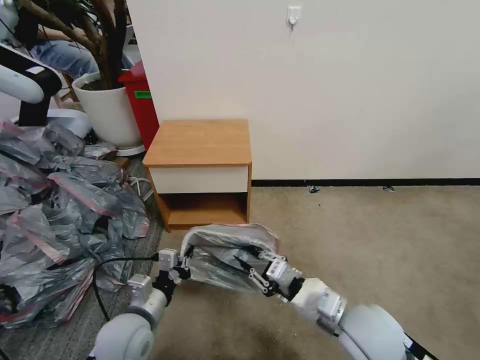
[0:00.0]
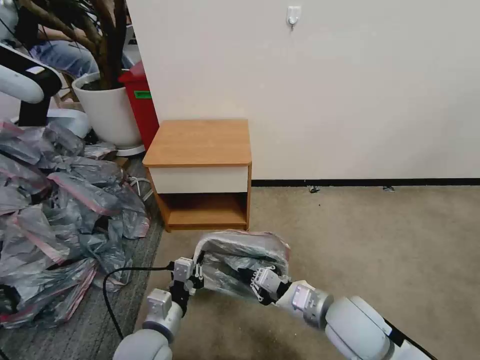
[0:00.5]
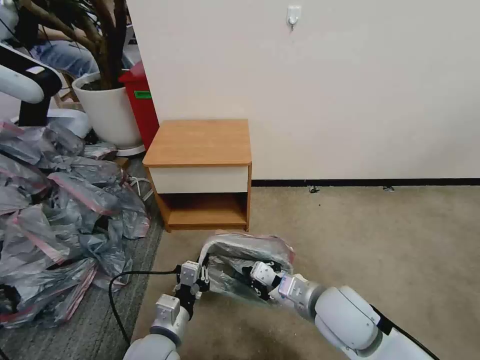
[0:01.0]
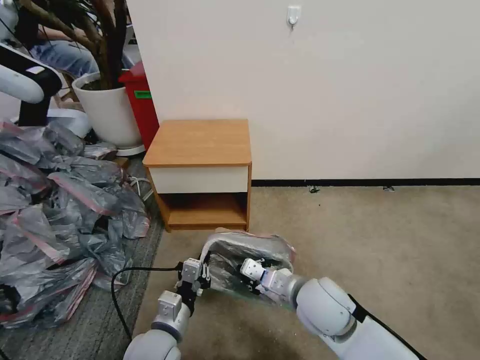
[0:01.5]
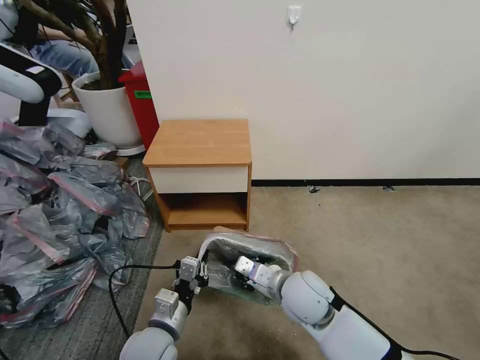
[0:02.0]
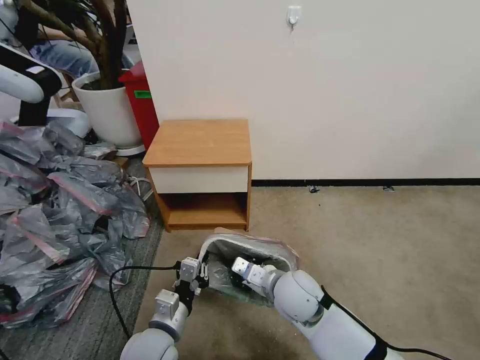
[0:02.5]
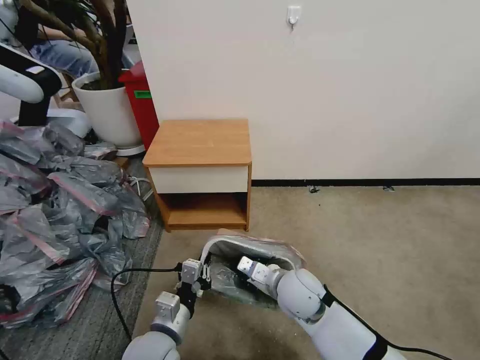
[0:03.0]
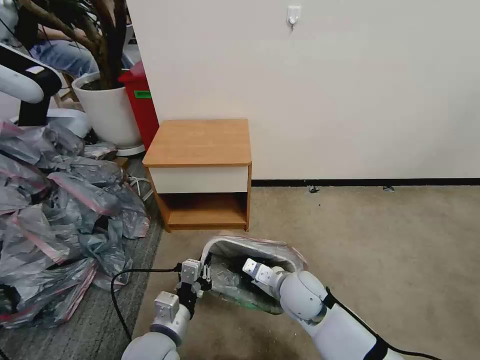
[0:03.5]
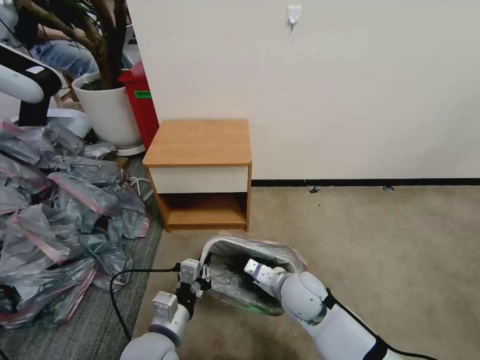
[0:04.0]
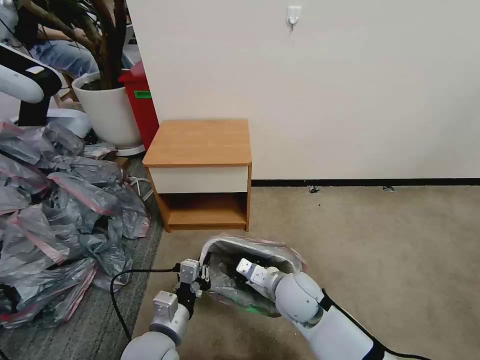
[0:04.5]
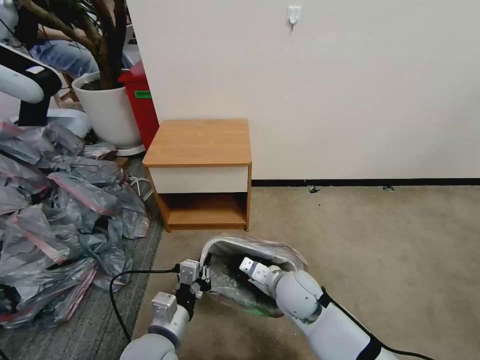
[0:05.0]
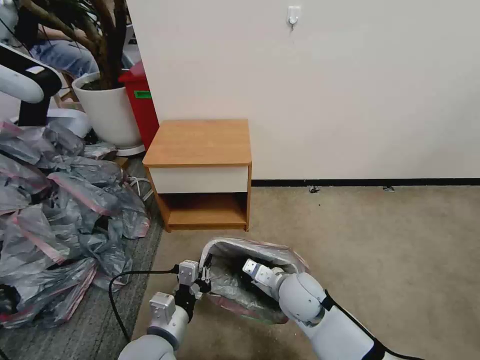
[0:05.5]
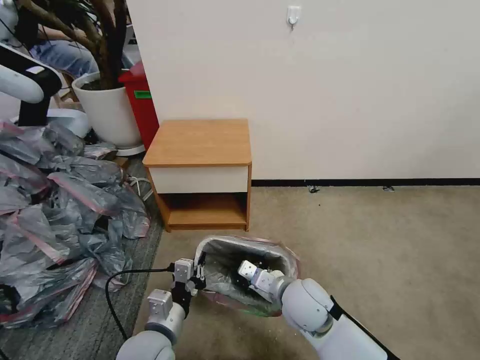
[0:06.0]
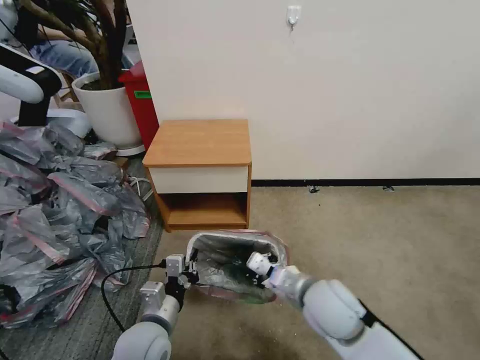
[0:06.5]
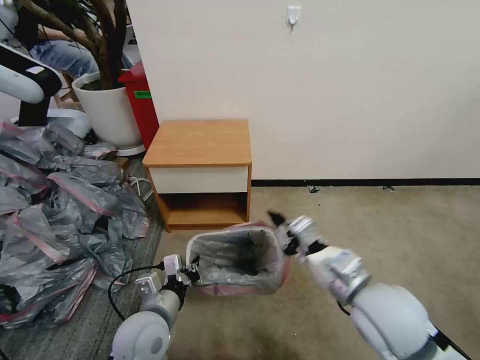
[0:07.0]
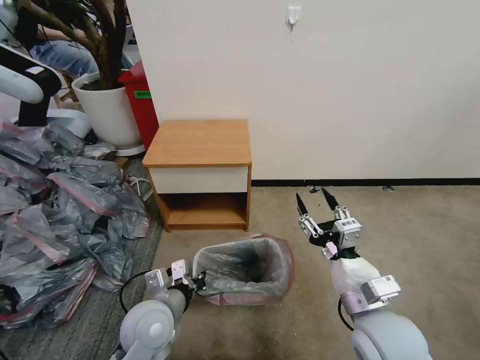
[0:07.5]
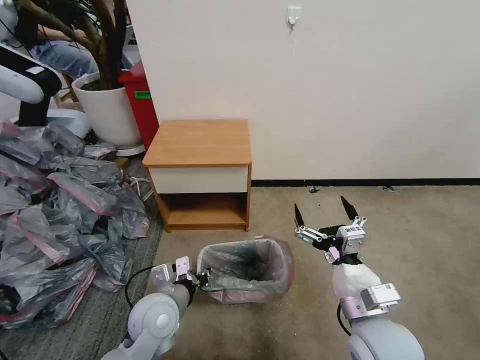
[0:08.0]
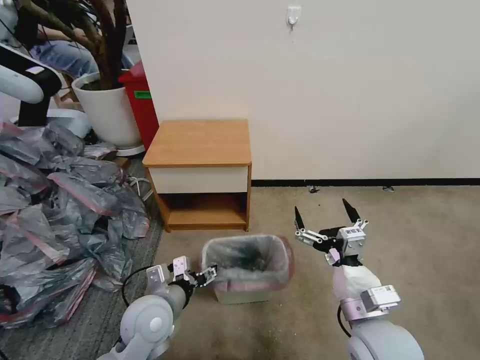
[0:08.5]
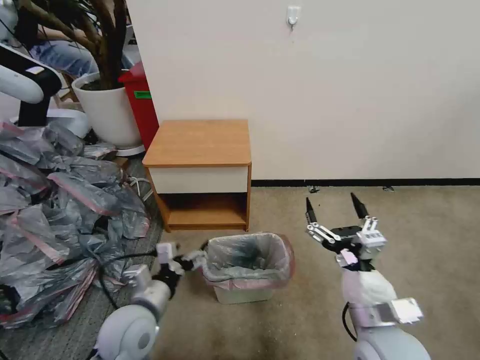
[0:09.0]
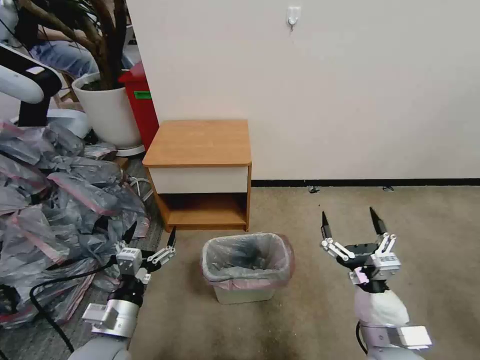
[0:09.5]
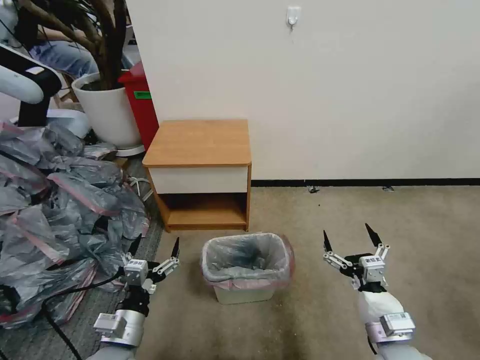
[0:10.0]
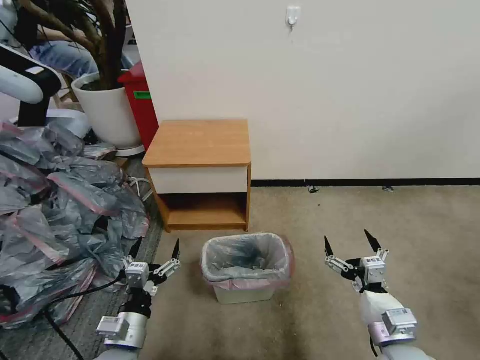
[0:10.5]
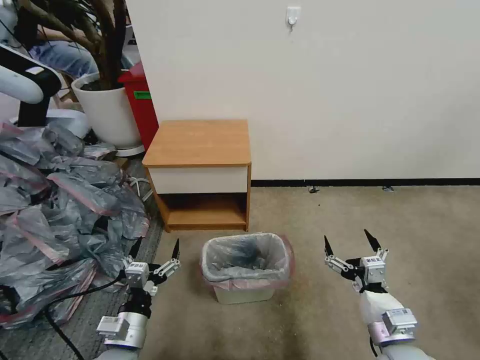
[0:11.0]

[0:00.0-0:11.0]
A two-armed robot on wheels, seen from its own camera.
Task of the whole recording: Pick up the garbage bag from the table and place it over the trash can.
0:00.0 to 0:02.0: The right gripper shifts some 10 cm to the left and forward; the left gripper heads to the right, covering roughly 5 cm.
0:02.0 to 0:05.5: There are only small adjustments of the grippers.
0:05.5 to 0:07.5: The right gripper heads upward, backward and to the right, covering some 20 cm, and opens its fingers, while the left gripper heads forward, covering approximately 5 cm.
0:07.5 to 0:09.0: The left gripper opens its fingers. The right gripper opens.
0:09.0 to 0:11.0: The left gripper moves backward and downward, roughly 10 cm, while the right gripper heads downward and to the right, covering some 10 cm.

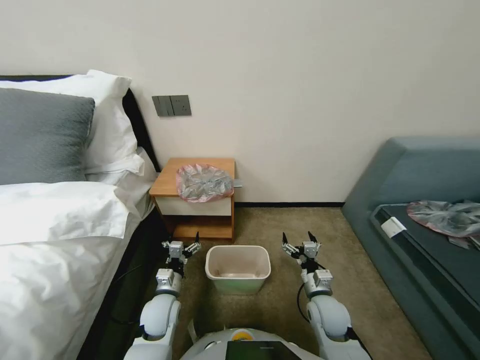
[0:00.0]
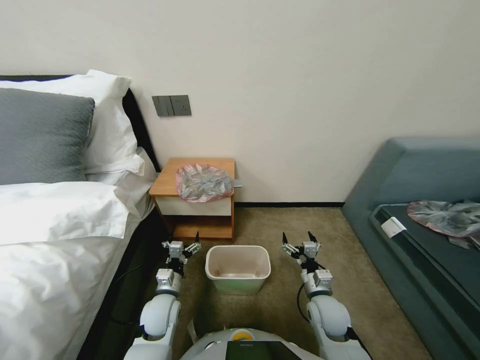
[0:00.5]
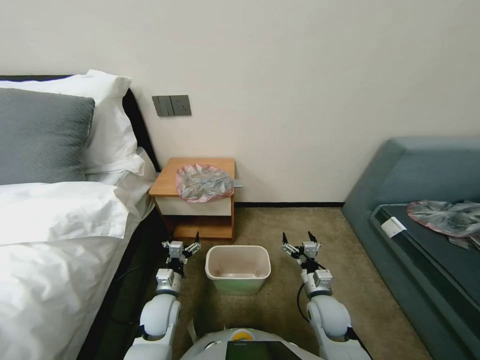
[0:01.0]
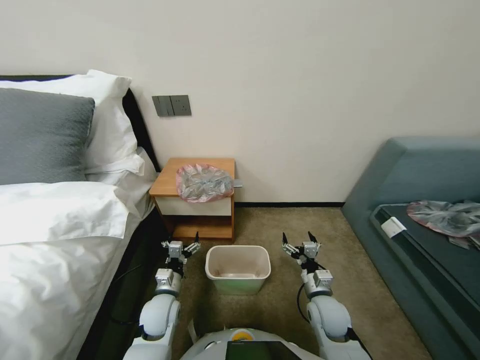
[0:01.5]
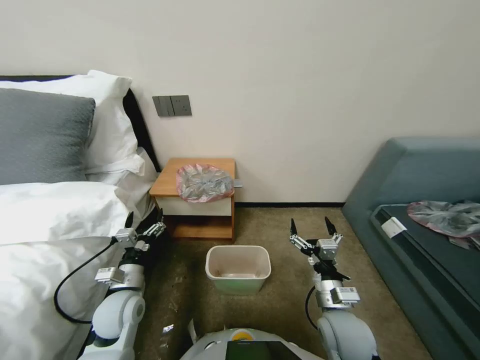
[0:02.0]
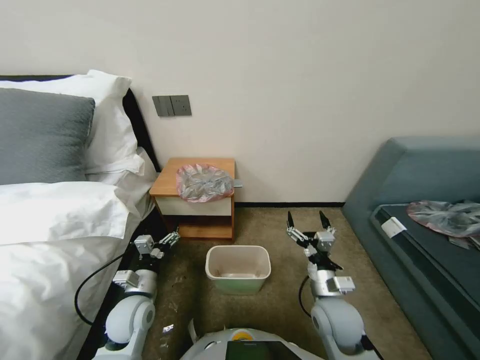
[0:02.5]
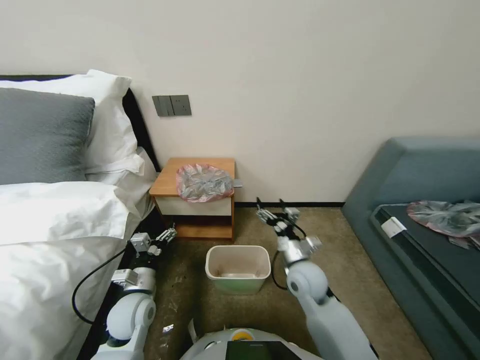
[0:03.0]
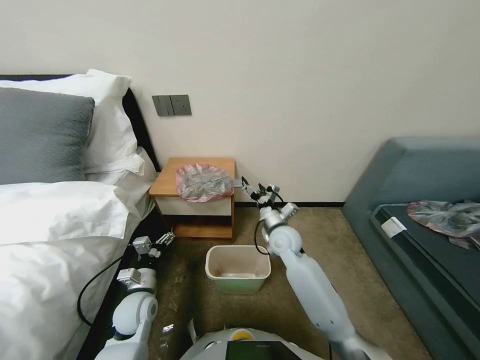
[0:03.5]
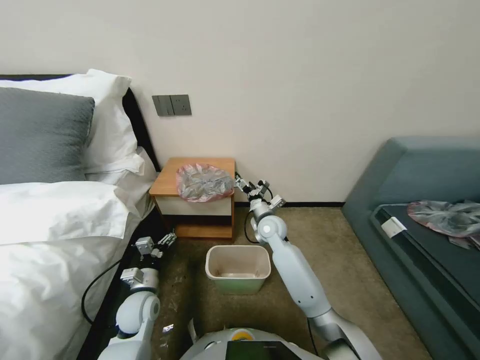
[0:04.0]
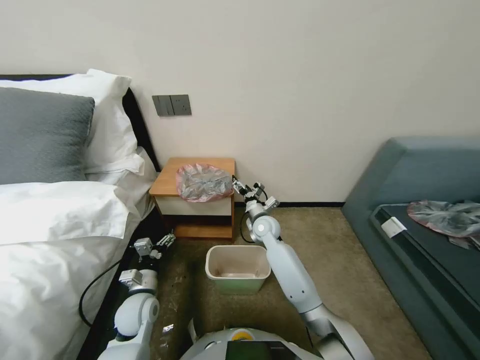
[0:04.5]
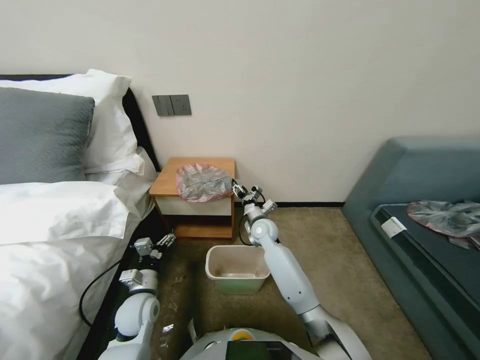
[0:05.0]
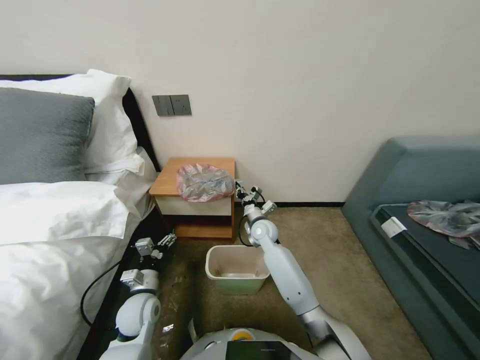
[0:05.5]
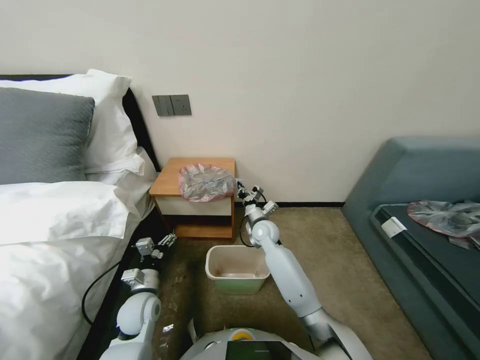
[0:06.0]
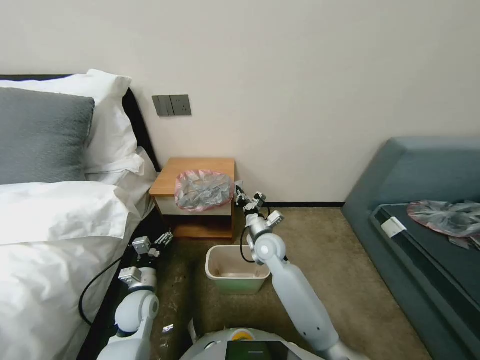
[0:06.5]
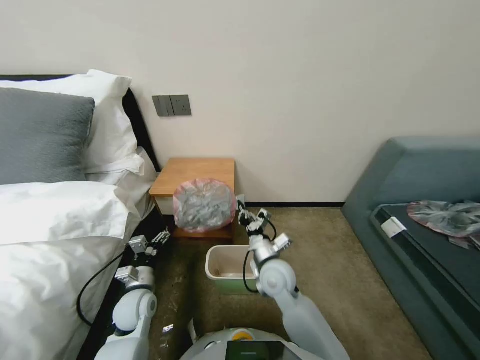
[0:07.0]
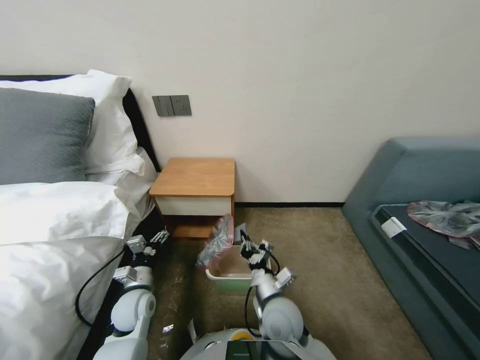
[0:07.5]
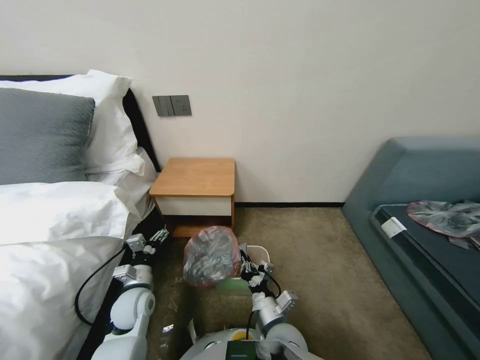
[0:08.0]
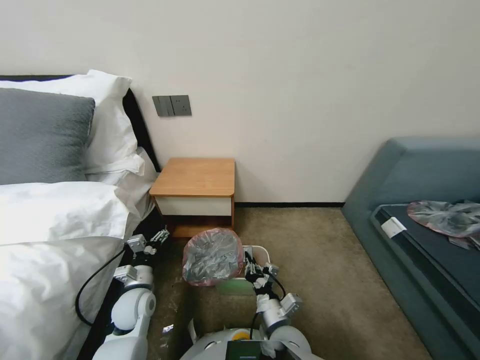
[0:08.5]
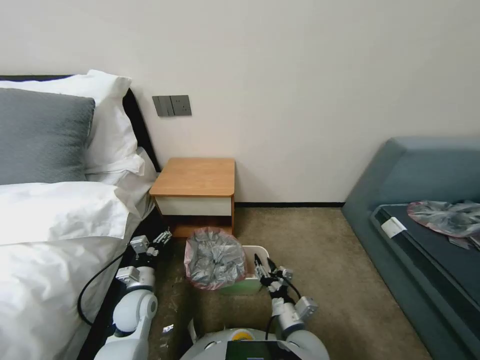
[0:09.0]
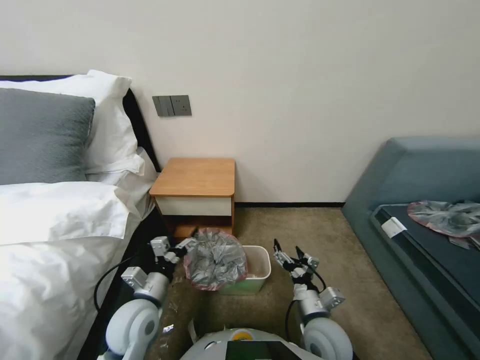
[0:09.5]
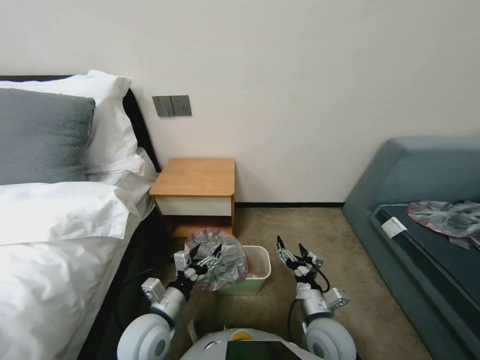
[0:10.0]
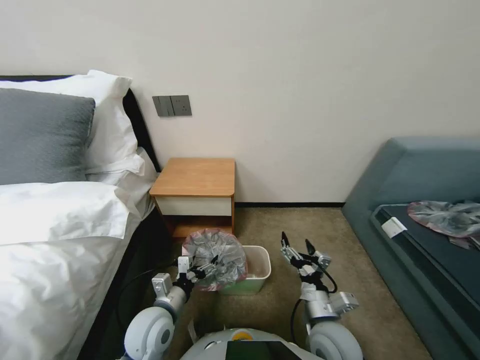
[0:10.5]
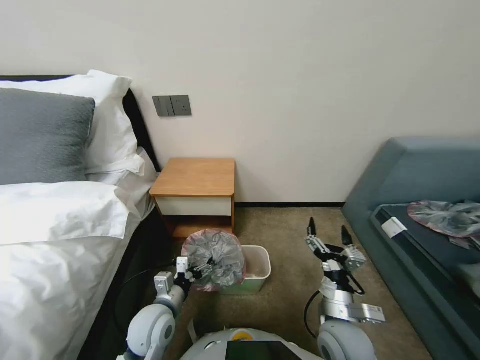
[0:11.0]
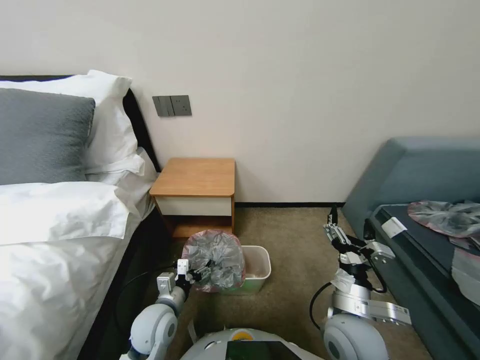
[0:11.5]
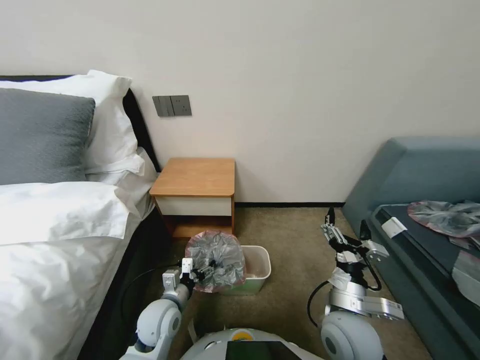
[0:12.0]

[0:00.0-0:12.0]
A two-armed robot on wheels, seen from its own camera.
Task of the whole recording: Pick up the garbage bag from the table and place it over the trash can.
0:02.0 to 0:04.0: The left gripper travels downward by about 5 cm, while the right gripper travels forward by approximately 25 cm.
0:04.0 to 0:06.0: The right gripper changes place by about 5 cm, and closes its fingers.
0:06.0 to 0:08.0: The right gripper moves backward, about 30 cm.
0:08.0 to 0:10.0: The left gripper is displaced to the right, backward and upward by roughly 15 cm, while the right gripper goes approximately 10 cm to the right, and opens.
0:10.0 to 0:12.0: The right gripper travels upward by some 5 cm, while the left gripper travels downward by approximately 5 cm.

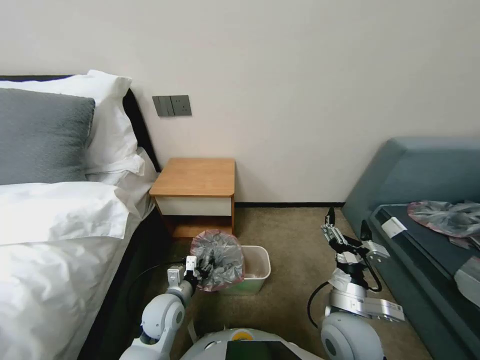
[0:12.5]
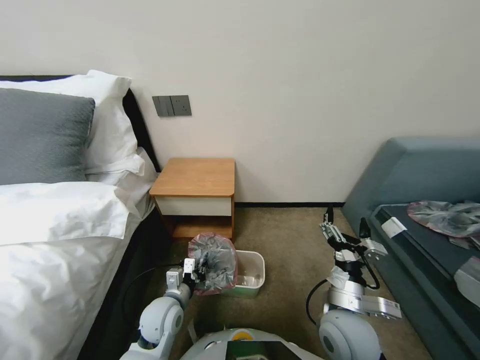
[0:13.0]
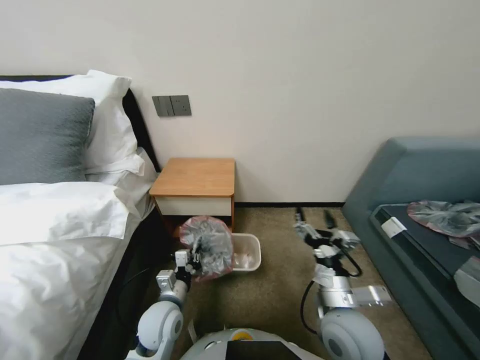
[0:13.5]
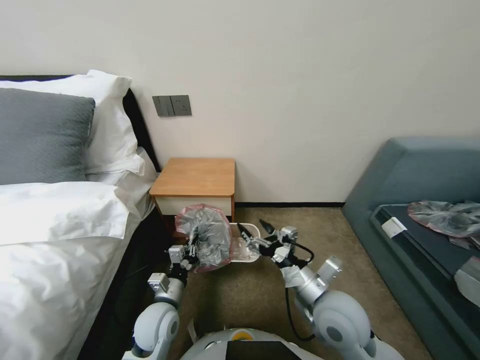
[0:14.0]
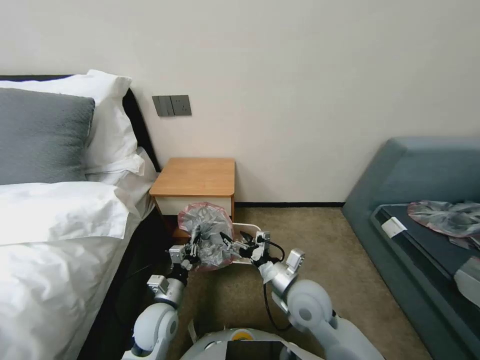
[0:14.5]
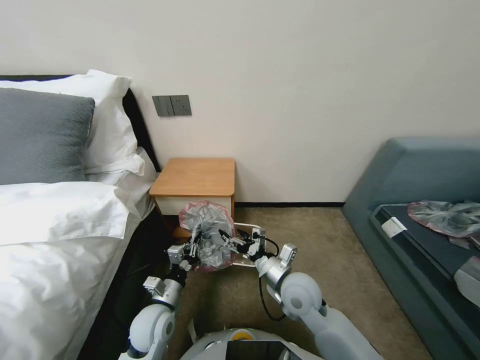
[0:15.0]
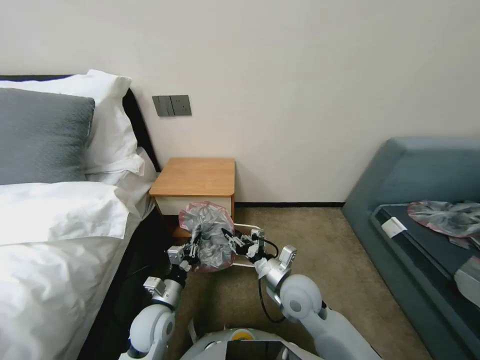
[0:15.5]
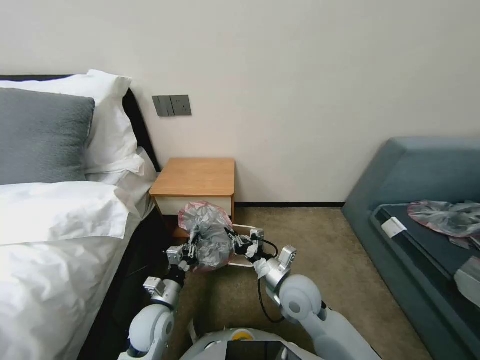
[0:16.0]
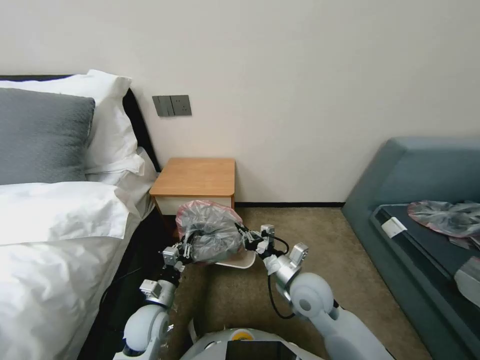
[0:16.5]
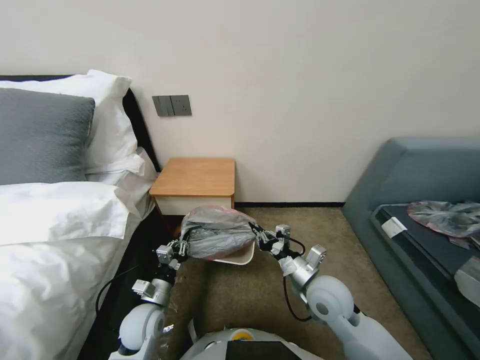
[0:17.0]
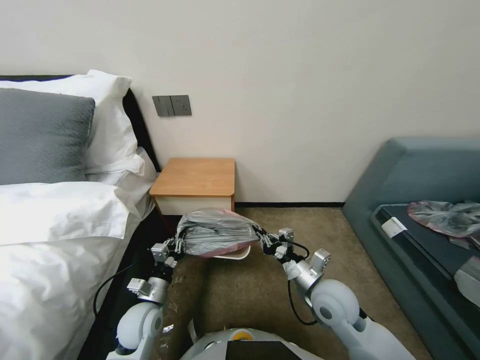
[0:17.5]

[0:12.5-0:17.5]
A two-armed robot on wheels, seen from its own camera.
Task of the whole recording: Pick up the garbage bag from the table and place it over the trash can.
0:12.5 to 0:15.0: The right gripper shifts about 10 cm forward and to the left. Meanwhile the left gripper closes up.
0:15.0 to 0:17.5: The right gripper heads to the right, covering some 5 cm, and closes.
